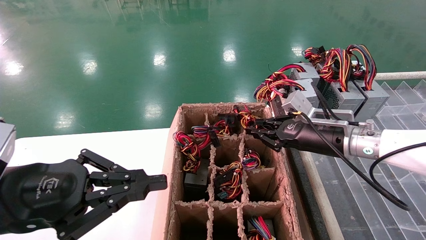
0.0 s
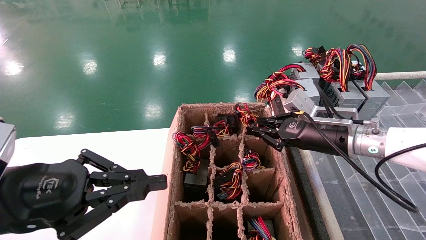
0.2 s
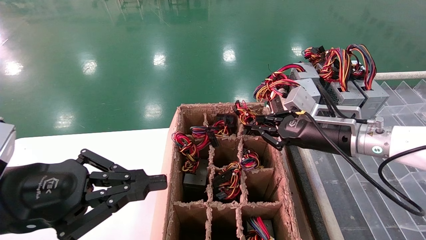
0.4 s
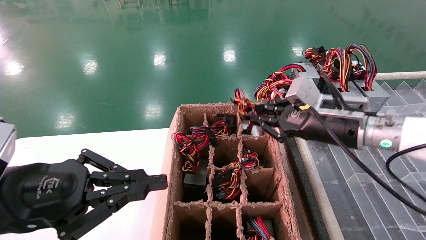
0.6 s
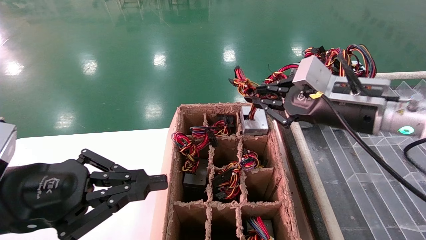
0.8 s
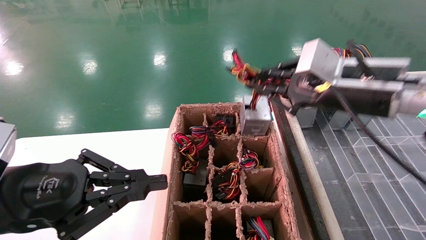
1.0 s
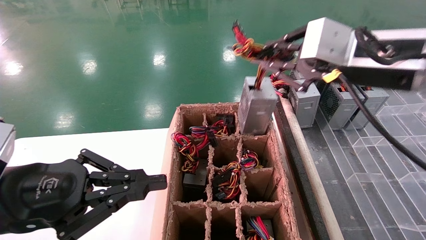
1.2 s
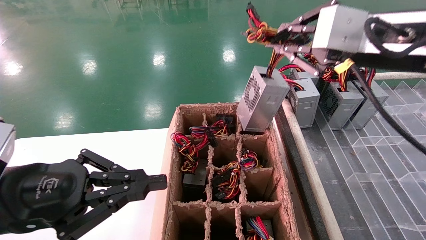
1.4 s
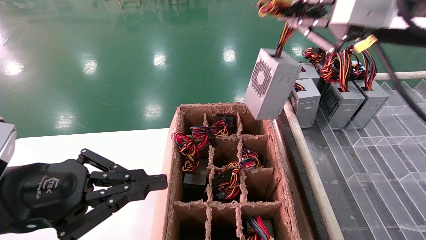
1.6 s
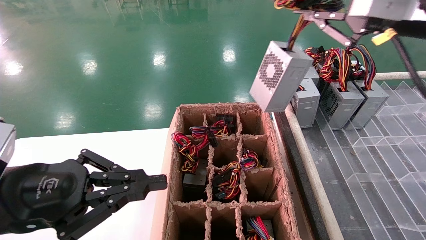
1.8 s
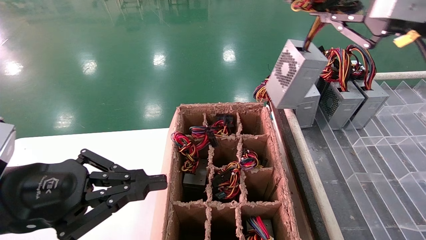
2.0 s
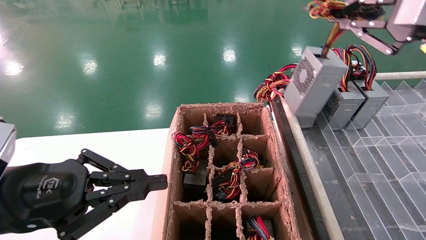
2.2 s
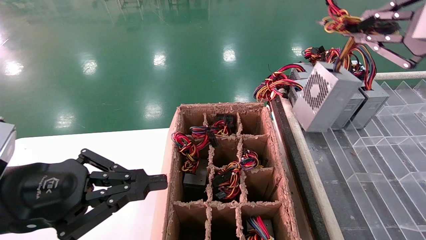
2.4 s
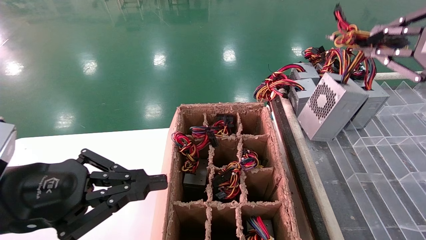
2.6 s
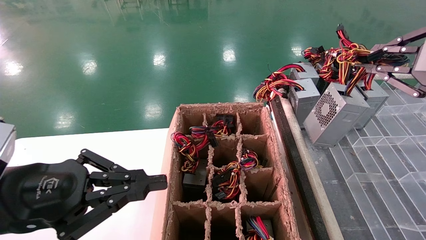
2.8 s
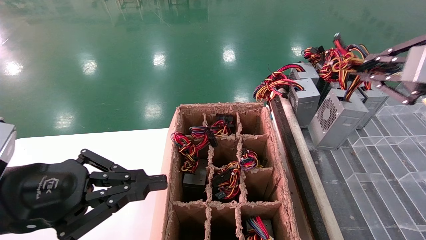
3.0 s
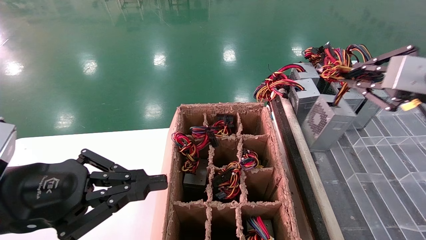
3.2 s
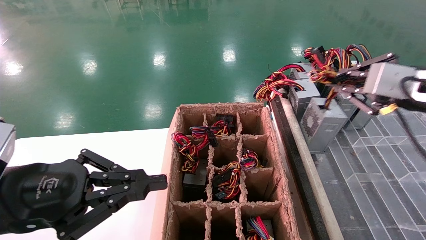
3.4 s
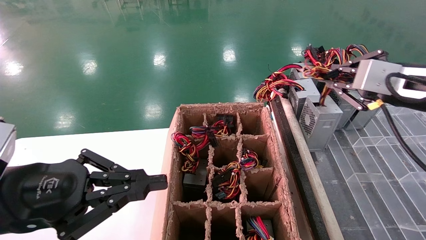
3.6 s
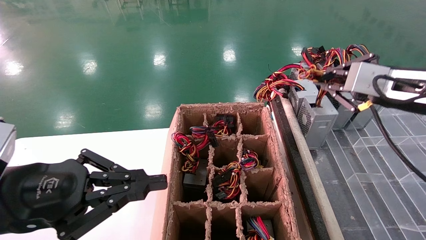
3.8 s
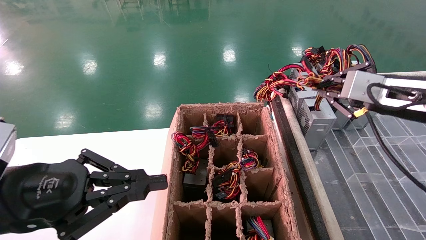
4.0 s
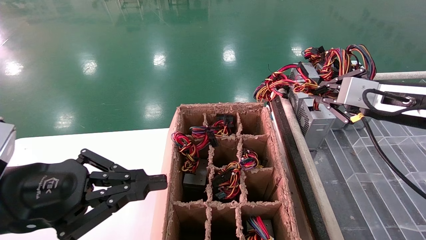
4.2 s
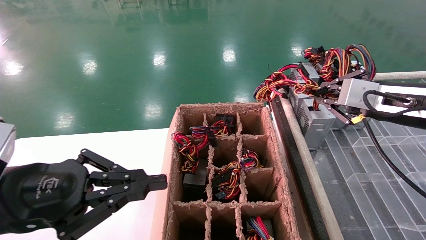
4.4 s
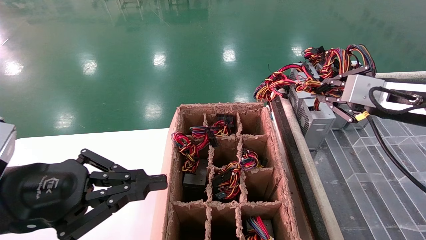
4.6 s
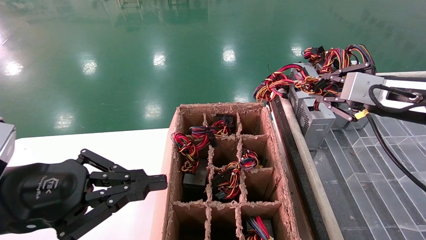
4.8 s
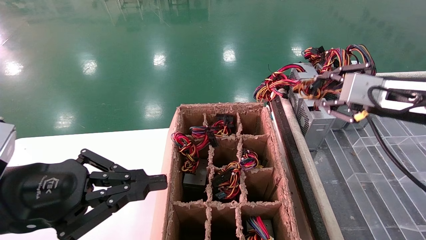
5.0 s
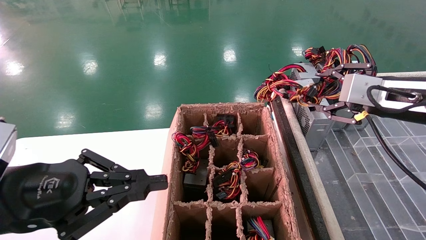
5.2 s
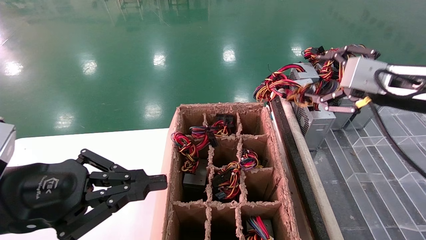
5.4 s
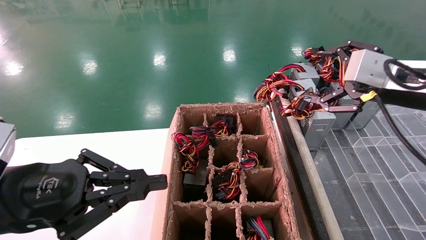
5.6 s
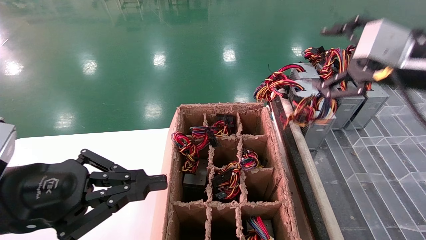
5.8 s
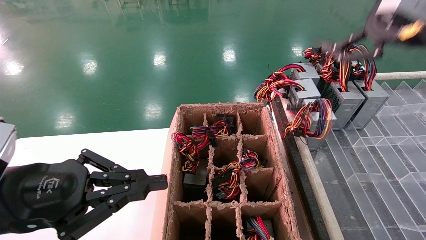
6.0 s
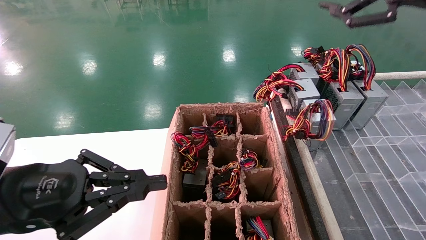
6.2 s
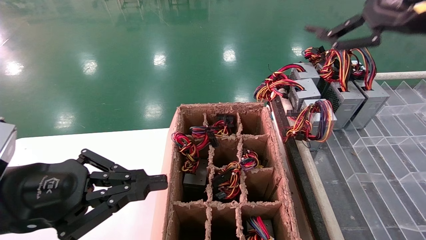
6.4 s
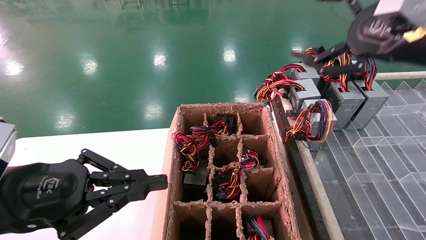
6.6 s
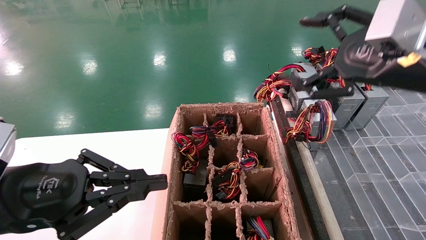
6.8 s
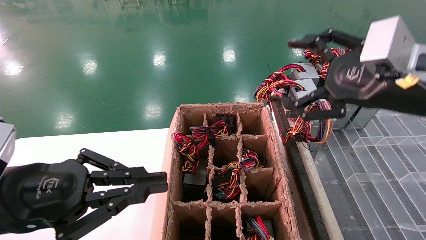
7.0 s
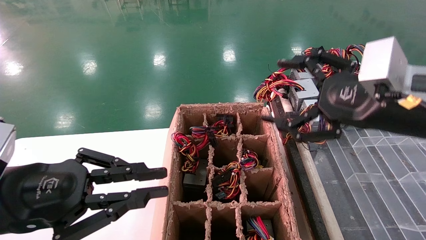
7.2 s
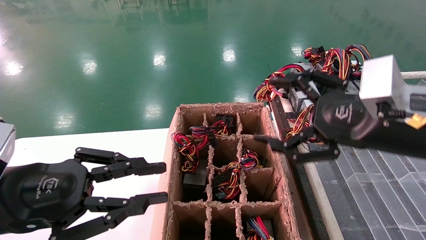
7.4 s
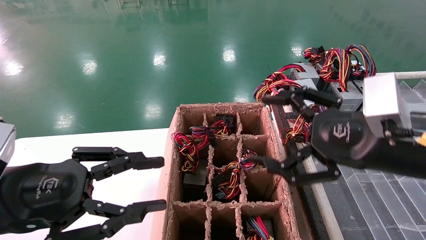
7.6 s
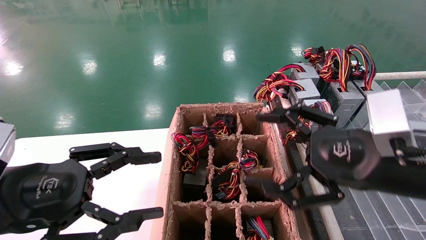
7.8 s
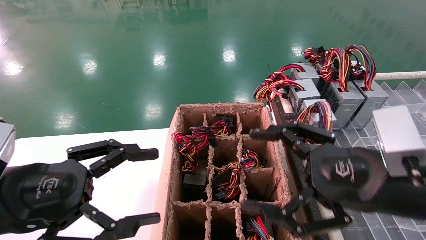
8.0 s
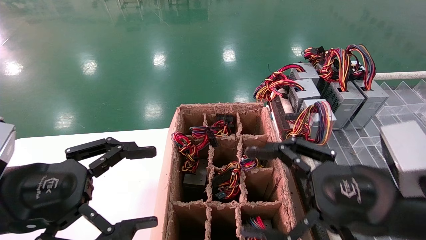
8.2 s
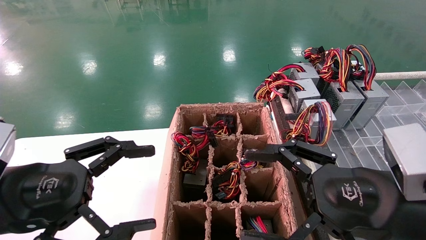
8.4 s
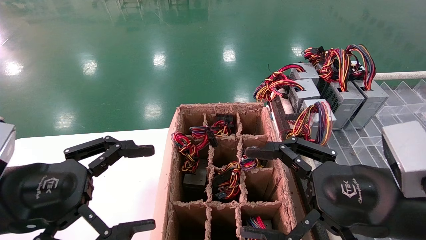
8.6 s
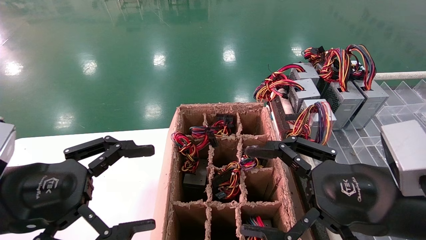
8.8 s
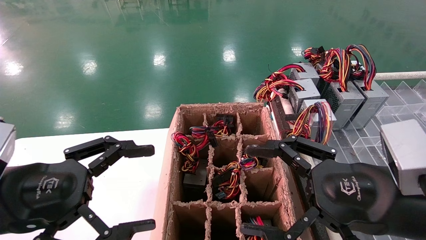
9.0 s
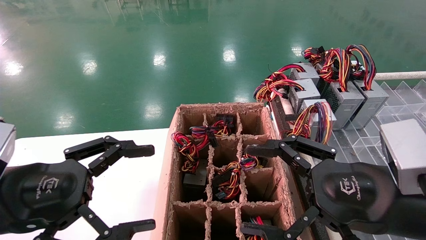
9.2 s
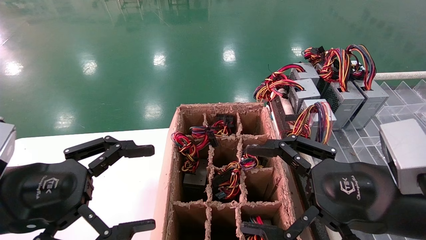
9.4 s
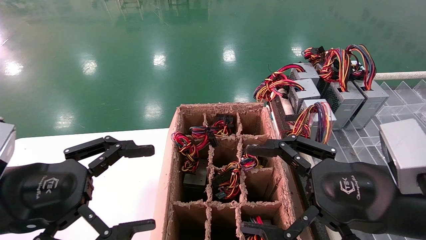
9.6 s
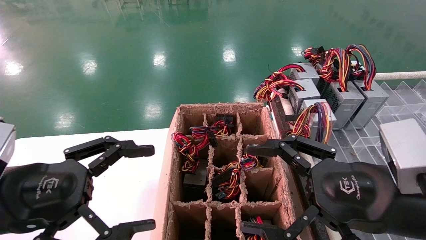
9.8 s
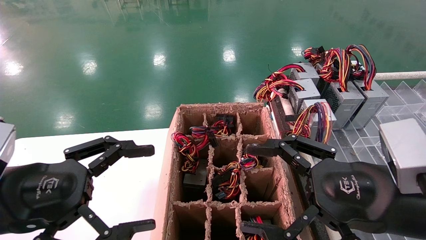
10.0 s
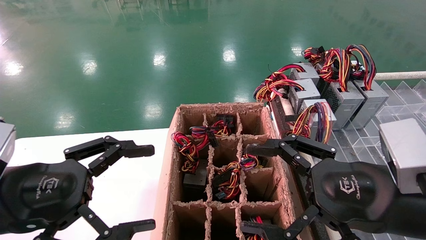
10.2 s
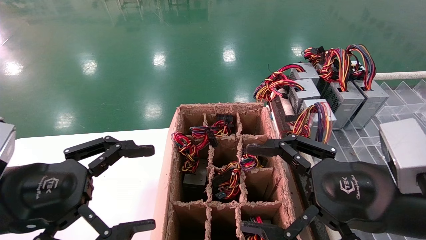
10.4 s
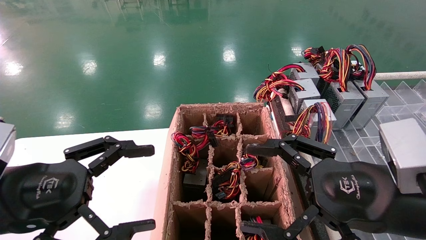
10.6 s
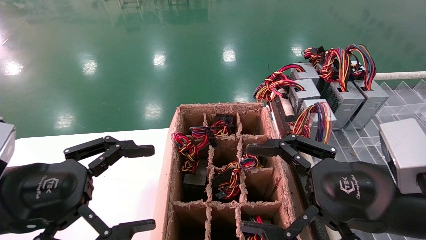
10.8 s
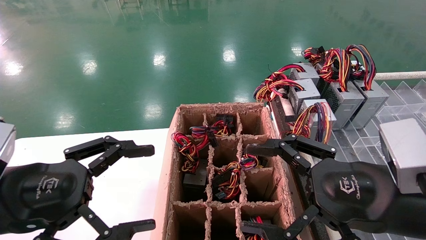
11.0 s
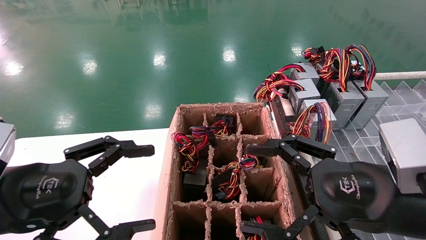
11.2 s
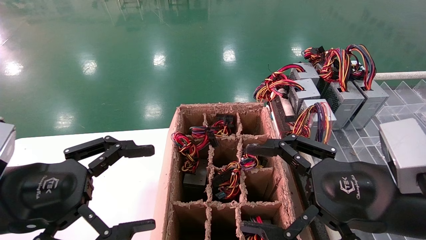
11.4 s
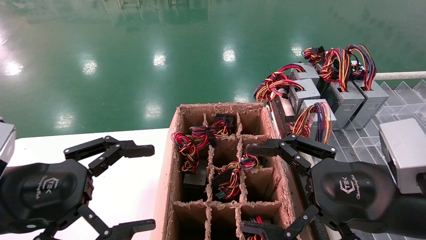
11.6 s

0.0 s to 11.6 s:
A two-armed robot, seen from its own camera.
Step, 0.4 to 5.2 s: Place the main unit power supply in the designated area.
0.0 to 1.4 s: The right gripper travels upward and backward by about 20 cm.
1.4 to 2.8 s: The right gripper is displaced to the right by some 10 cm.
2.8 to 4.4 s: The right gripper goes about 10 cm forward and downward.
4.4 to 5.8 s: The right gripper travels upward by approximately 5 cm, and opens up.
5.8 to 7.2 s: The right gripper shifts approximately 5 cm downward.
7.2 to 8.8 s: The left gripper opens its fingers; the right gripper moves downward, approximately 10 cm.
8.8 to 11.6 s: The two grippers keep their place.
